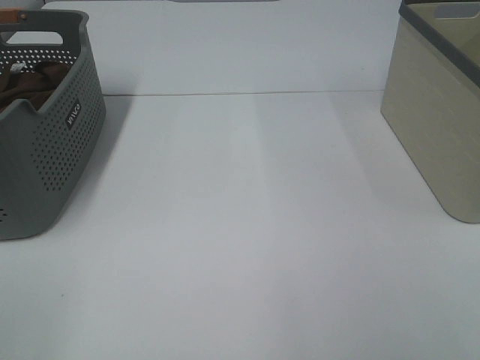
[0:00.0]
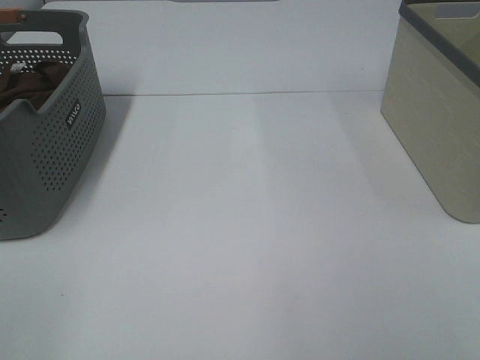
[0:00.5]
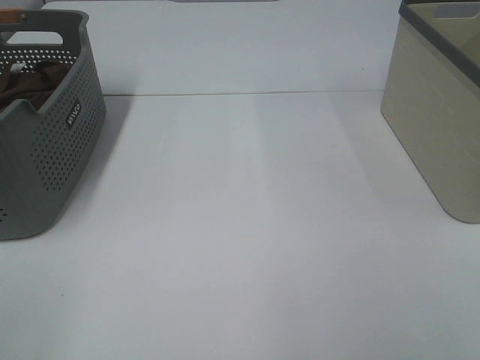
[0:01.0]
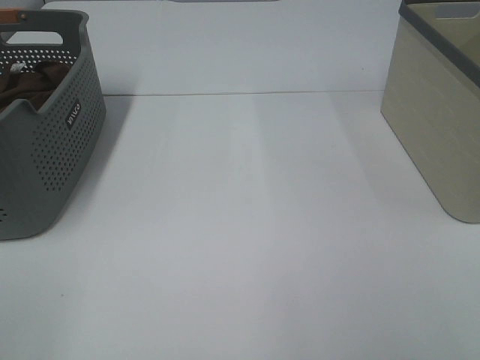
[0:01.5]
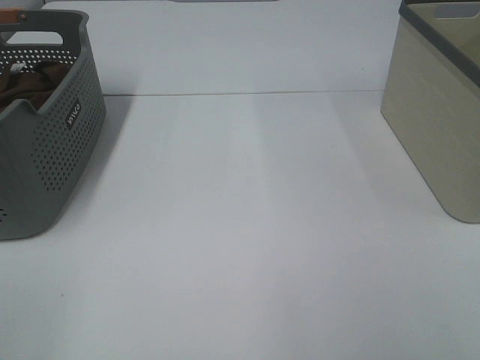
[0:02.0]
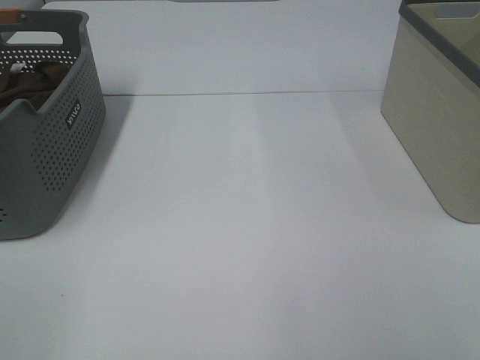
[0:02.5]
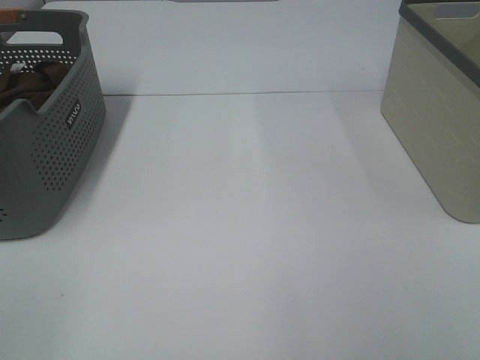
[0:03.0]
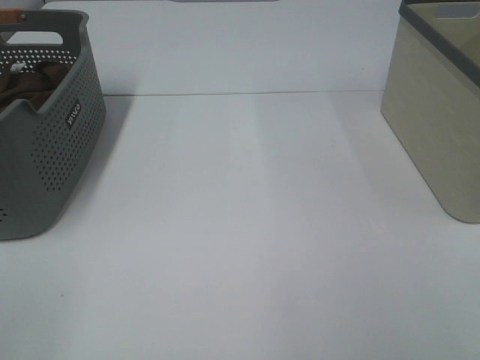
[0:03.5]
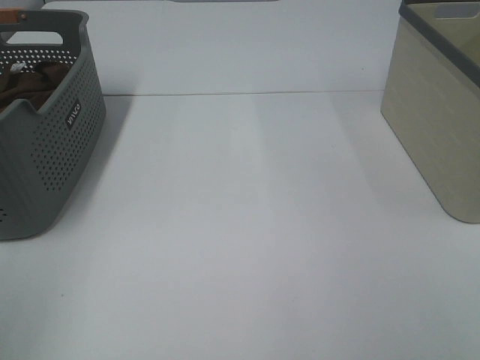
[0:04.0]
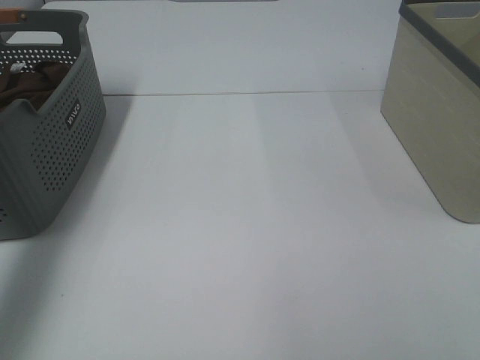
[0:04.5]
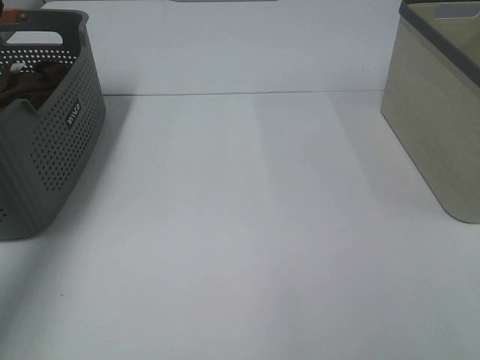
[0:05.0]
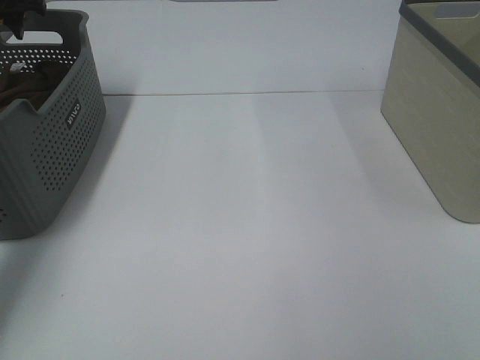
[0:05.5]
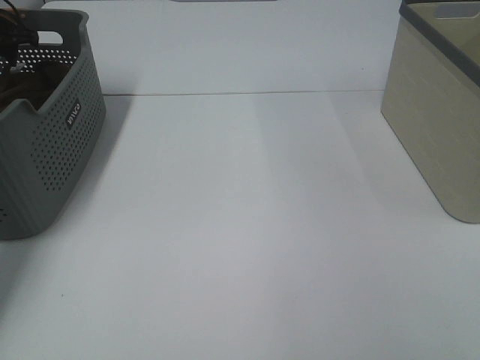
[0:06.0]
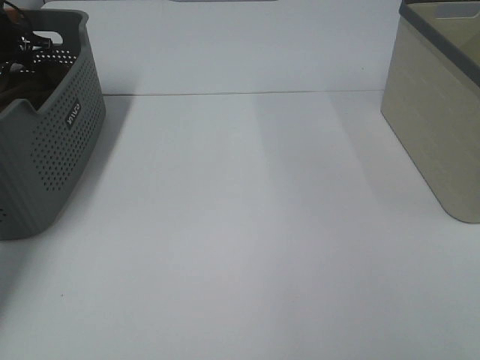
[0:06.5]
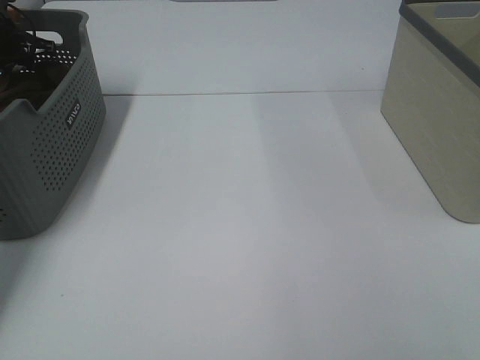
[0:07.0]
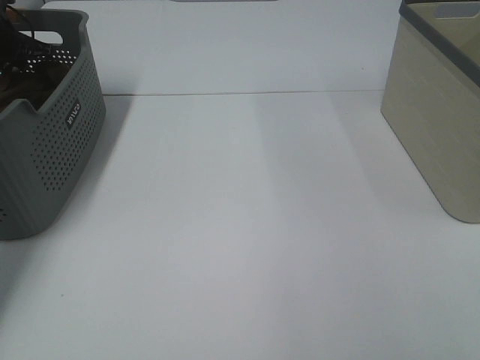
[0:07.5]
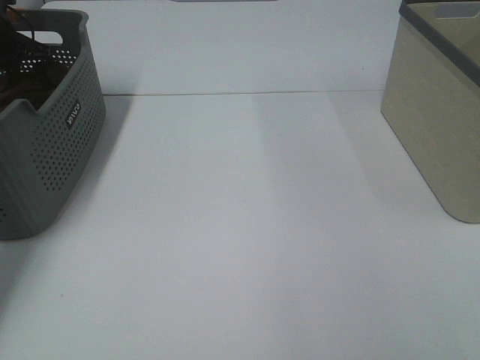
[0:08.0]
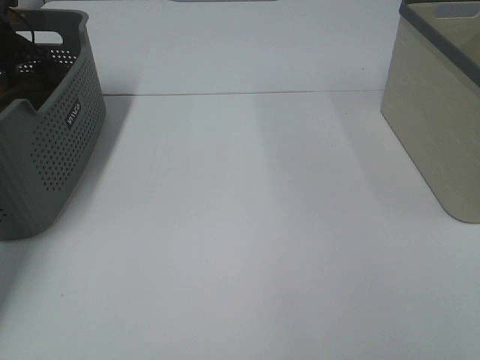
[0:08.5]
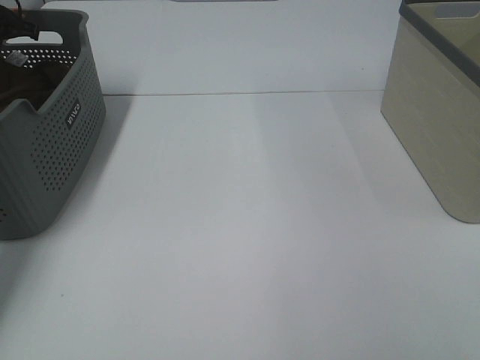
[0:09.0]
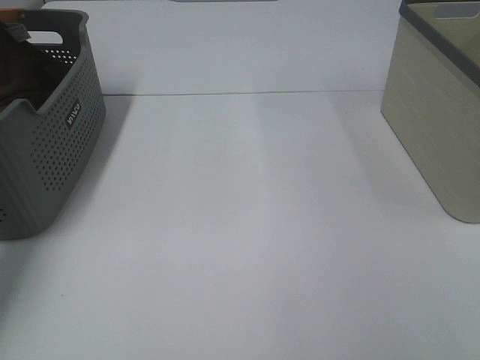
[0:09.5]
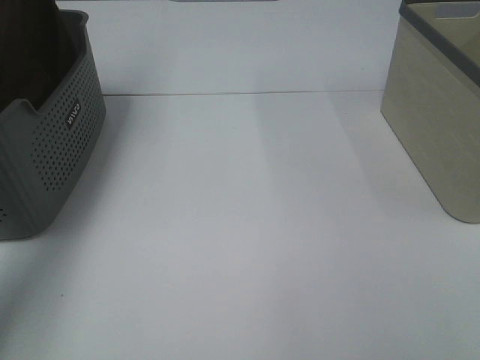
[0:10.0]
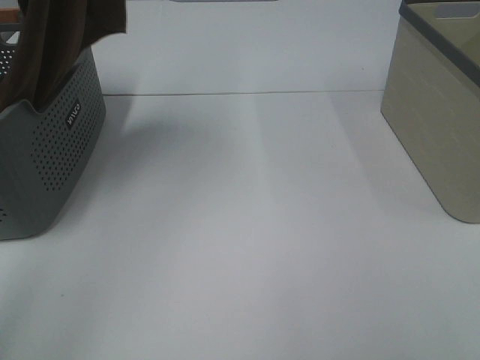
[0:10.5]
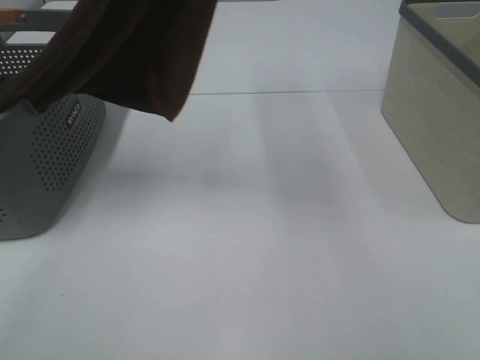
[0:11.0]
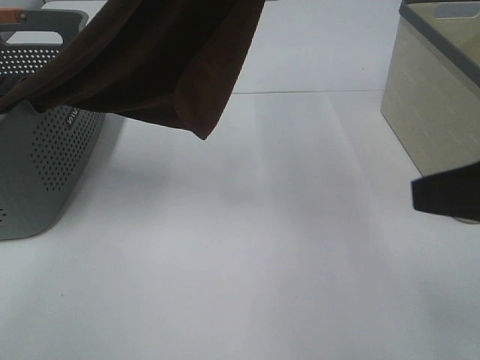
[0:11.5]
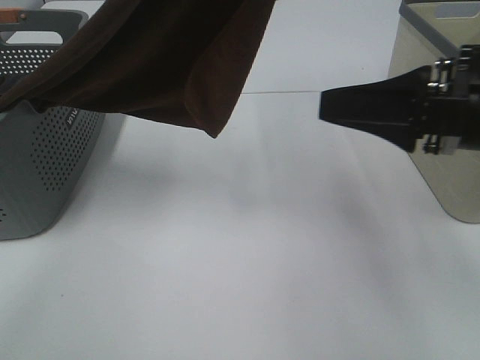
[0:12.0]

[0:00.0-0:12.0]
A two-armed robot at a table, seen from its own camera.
Task of the whole recording: Remove the towel and place it.
0:00.0 to 0:02.0: Both grippers stay about where they are.
0:04.0 to 0:06.0: The left gripper is displaced forward by approximately 50 cm.
0:08.0 to 0:10.0: The left gripper moves upward, roughly 25 cm.
0:10.0 to 0:12.0: The left gripper is displaced to the right and backward by roughly 35 cm; the right gripper heads forward and to the left, covering approximately 25 cm.

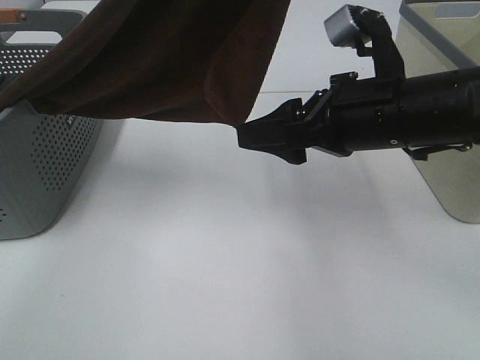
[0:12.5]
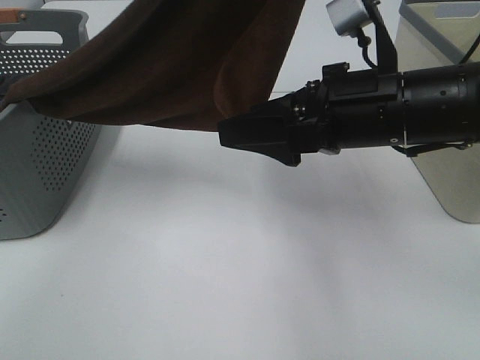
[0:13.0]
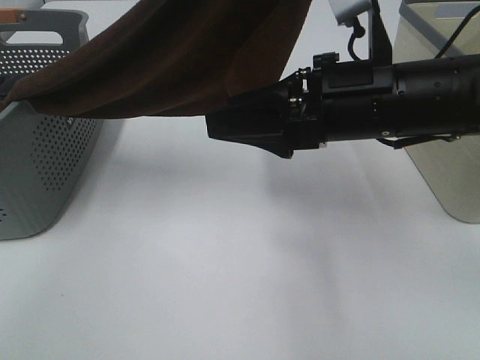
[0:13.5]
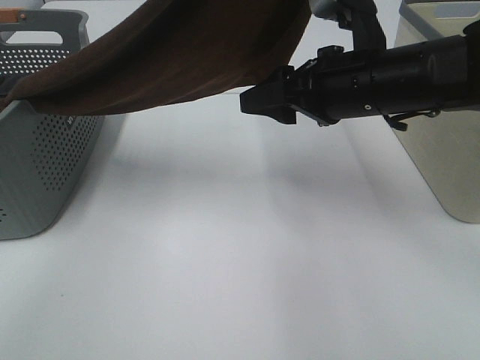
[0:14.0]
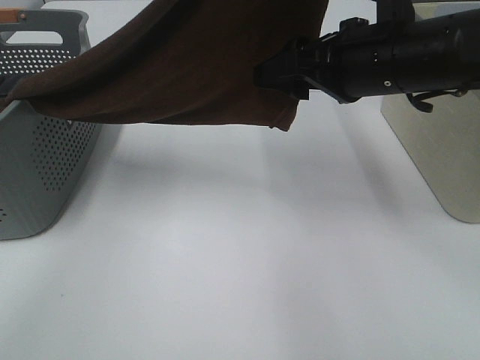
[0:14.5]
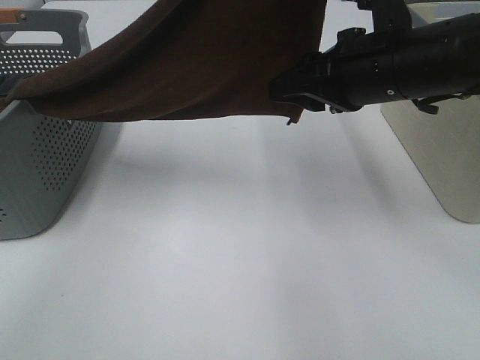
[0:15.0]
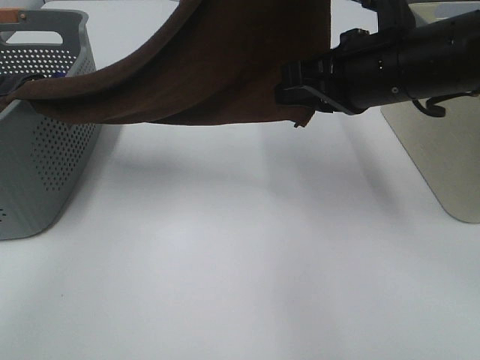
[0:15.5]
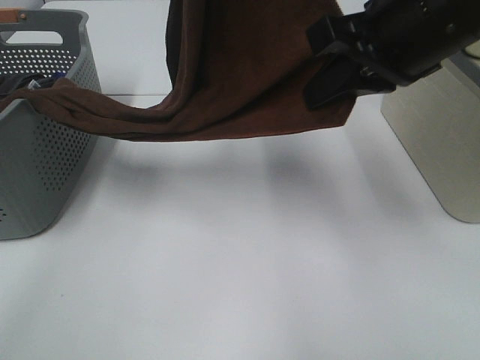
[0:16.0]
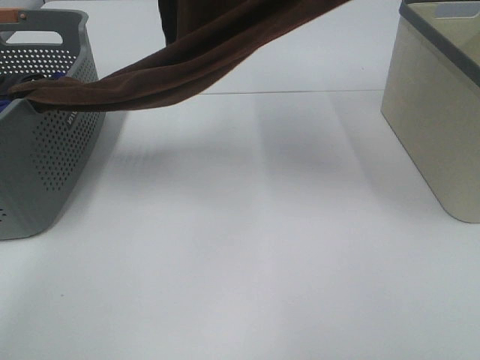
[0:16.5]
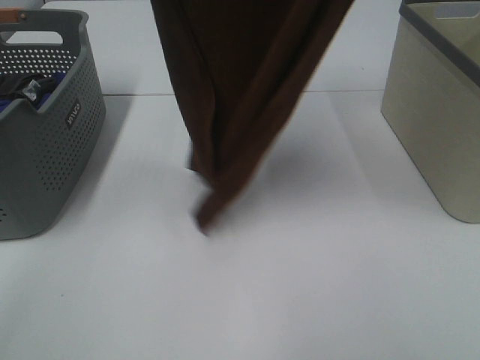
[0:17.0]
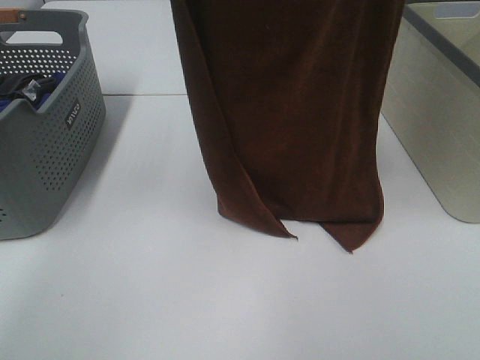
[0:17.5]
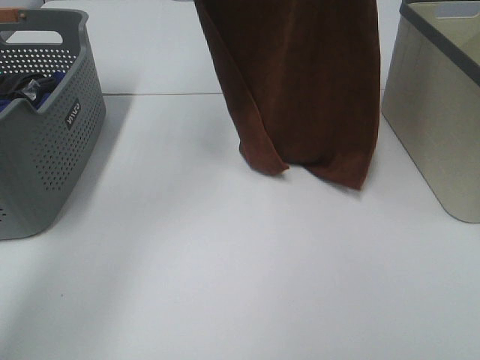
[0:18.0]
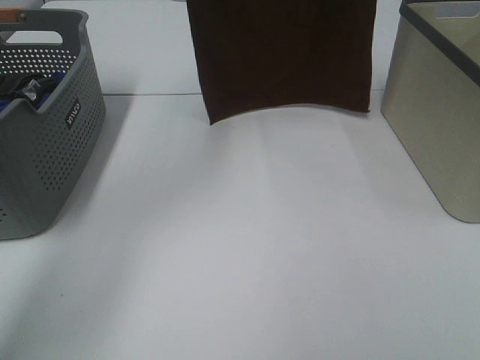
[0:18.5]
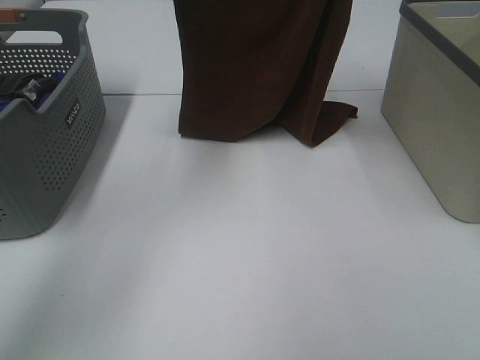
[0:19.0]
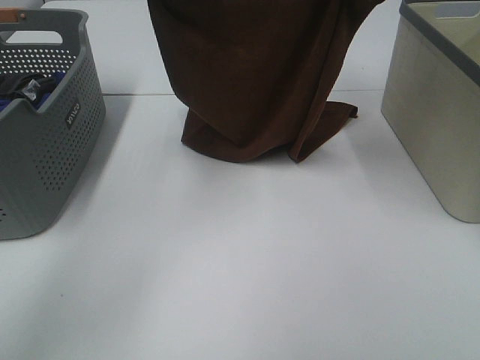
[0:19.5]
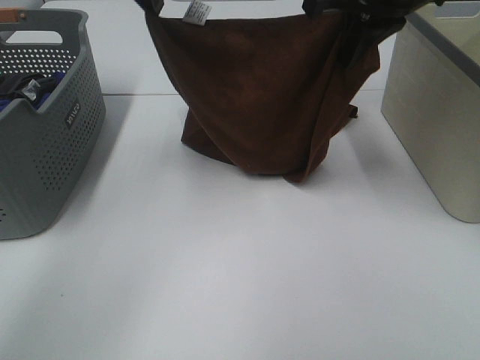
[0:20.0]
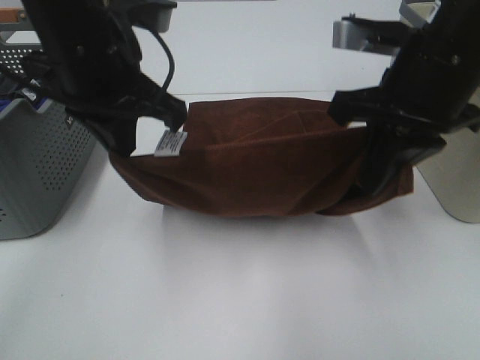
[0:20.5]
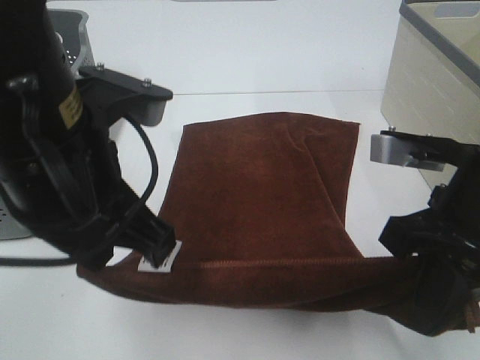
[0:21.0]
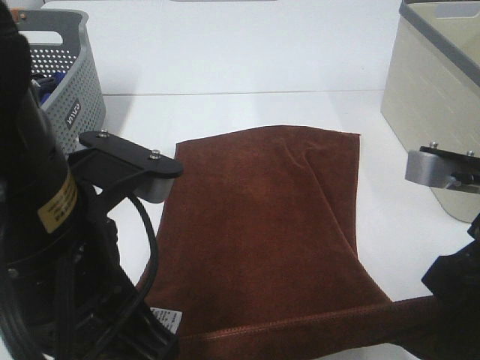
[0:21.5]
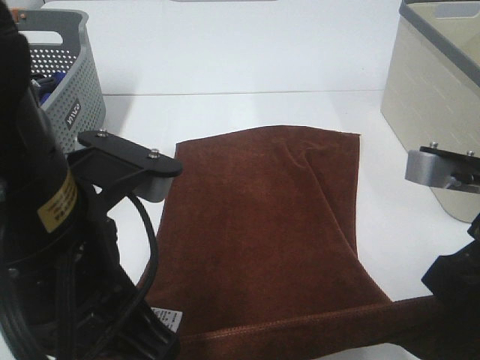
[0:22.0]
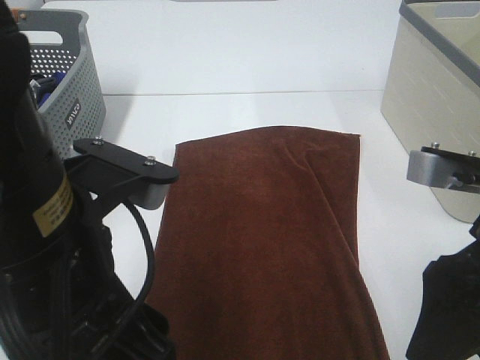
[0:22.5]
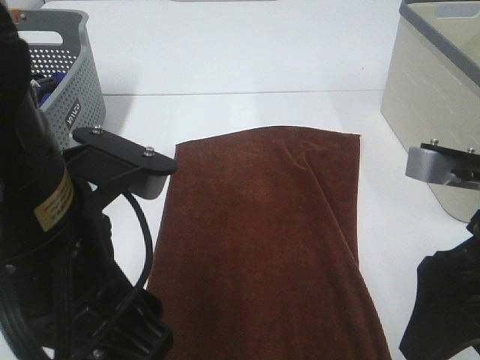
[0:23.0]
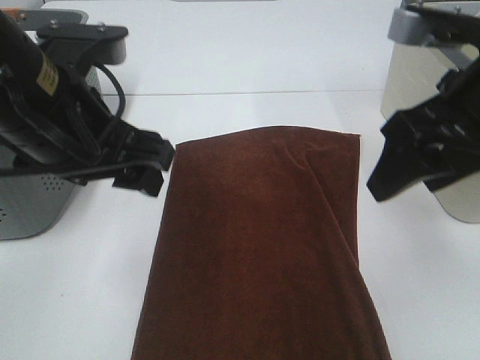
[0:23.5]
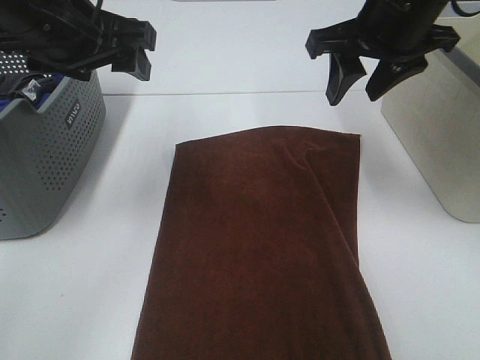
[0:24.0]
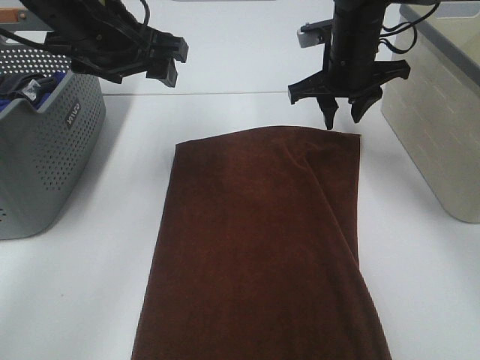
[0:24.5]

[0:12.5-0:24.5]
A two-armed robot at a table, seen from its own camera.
Task of the whole recording: Remove the towel and place it.
Step, 0:14.5 to 0:18.0: Left hand: spread the brown towel flat on the table.
Step, 0:14.5 to 0:18.0: Right hand: spread the brown towel flat on the table.
0:14.5 to 0:16.5: The right gripper moves upward, approximately 20 cm, and closes, while the left gripper shifts about 10 cm to the left and forward.
0:16.5 to 0:18.5: The right gripper is displaced forward and upward by some 10 cm; the left gripper travels forward by approximately 10 cm.
0:18.5 to 0:20.5: Both grippers move downward and backward, some 25 cm.
0:20.5 to 0:22.5: Both grippers move backward, about 15 cm. The right gripper opens up. Meanwhile the left gripper opens its fingers.
0:22.5 to 0:24.5: The two grippers go approximately 30 cm forward. The right gripper closes its fingers.

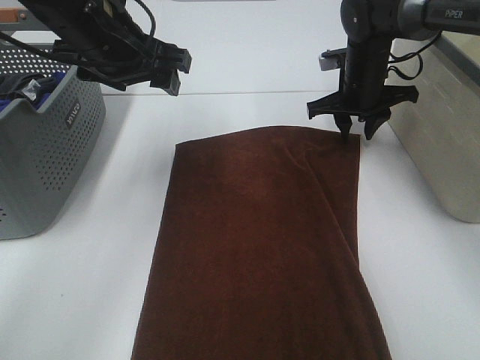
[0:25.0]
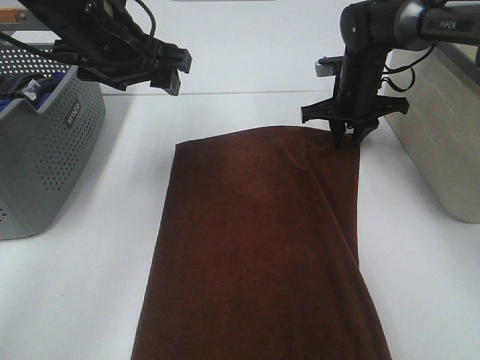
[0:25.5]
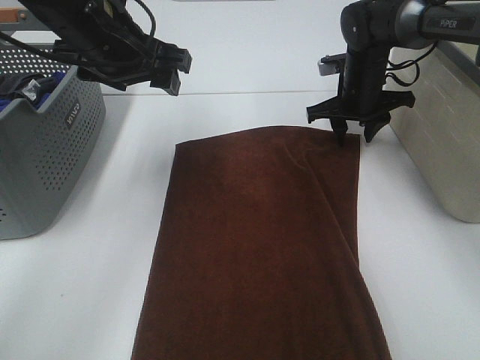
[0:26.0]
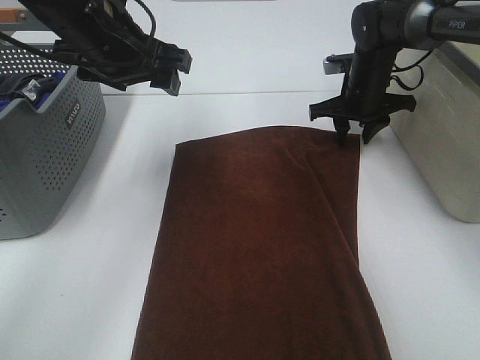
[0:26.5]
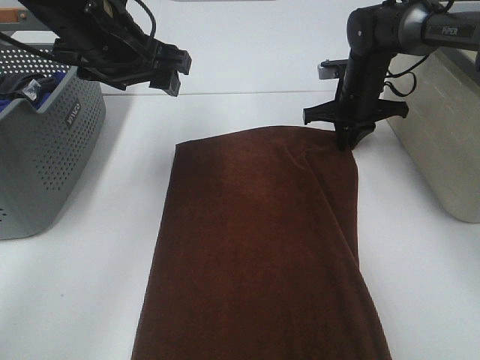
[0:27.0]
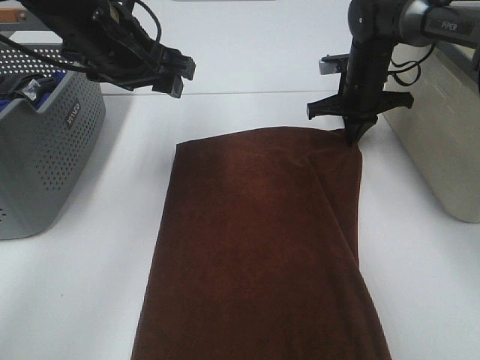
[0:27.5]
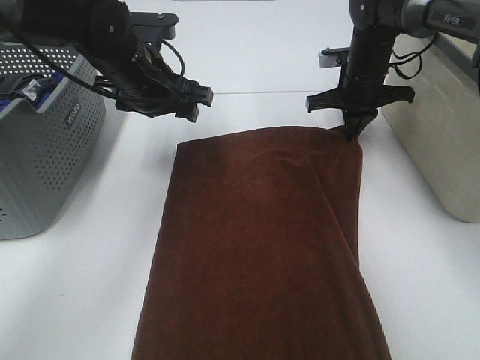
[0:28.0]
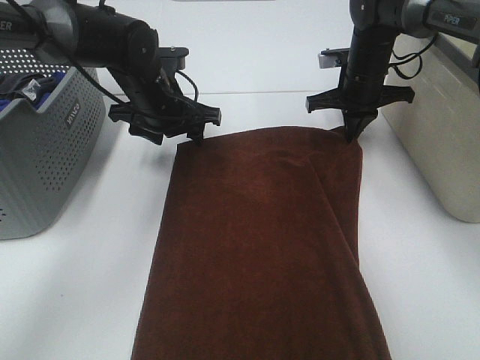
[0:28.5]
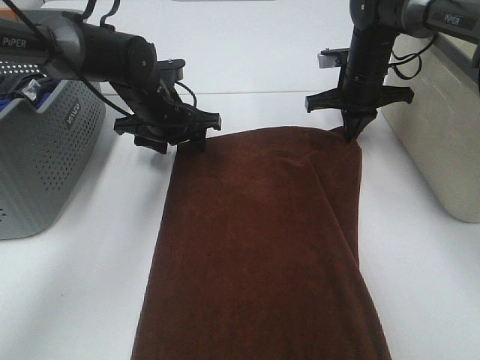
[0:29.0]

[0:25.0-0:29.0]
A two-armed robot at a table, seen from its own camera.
Task of the whole recording: Remove the towel and place it.
0:25.0 to 0:27.0: The right gripper closes its fingers.
0:27.0 to 0:29.0: The left gripper moves downward and forward, some 15 cm.
